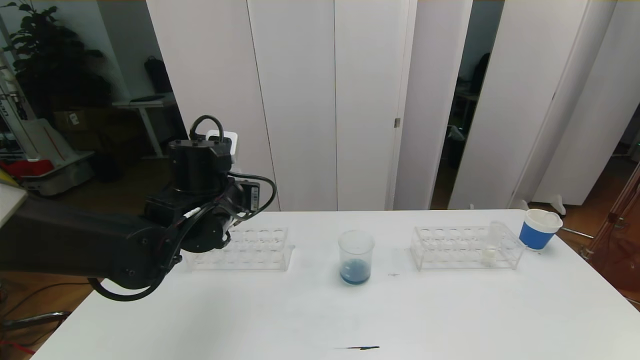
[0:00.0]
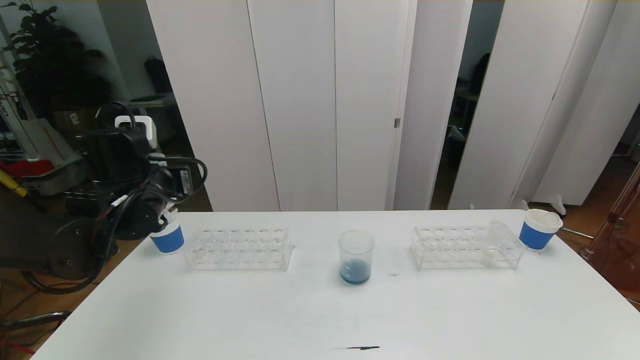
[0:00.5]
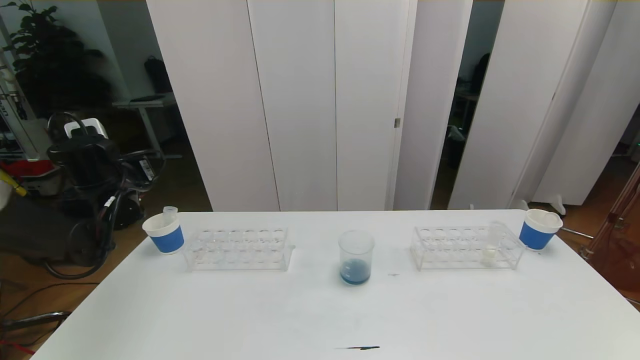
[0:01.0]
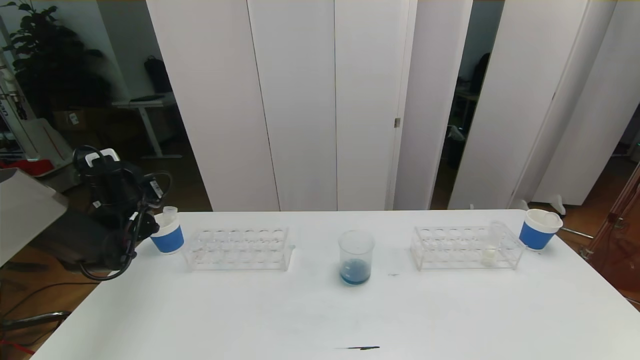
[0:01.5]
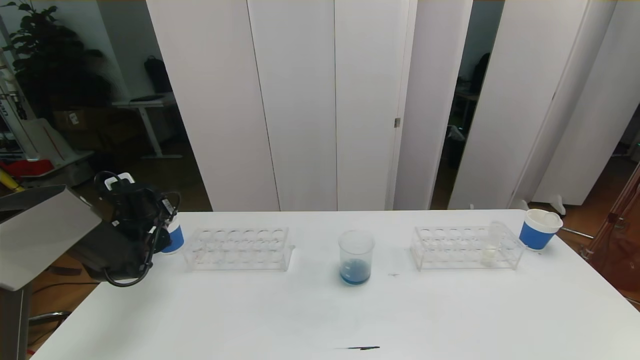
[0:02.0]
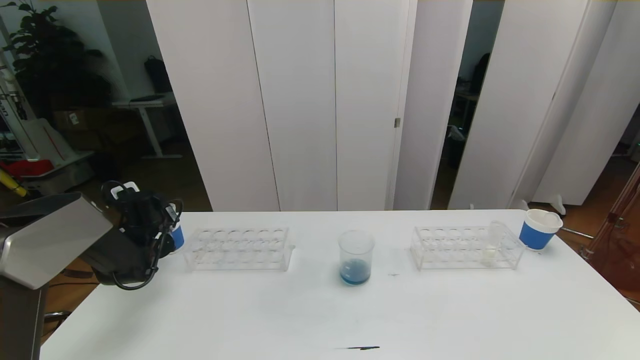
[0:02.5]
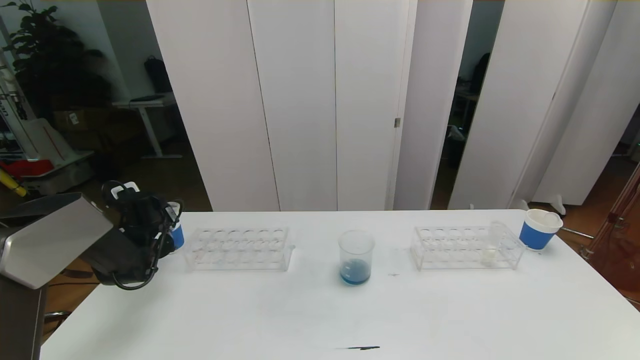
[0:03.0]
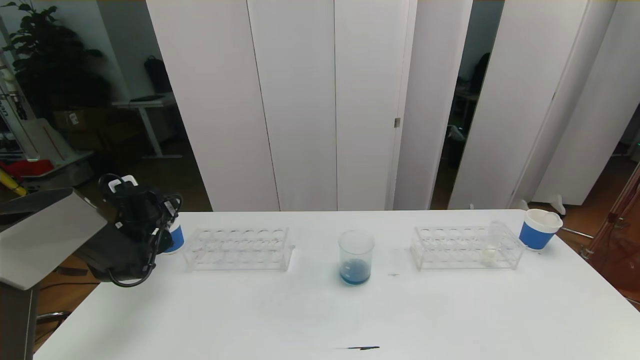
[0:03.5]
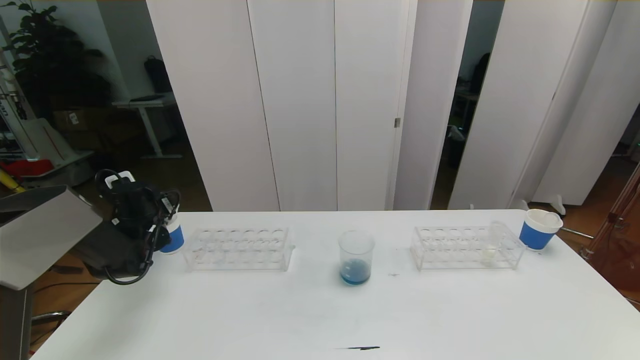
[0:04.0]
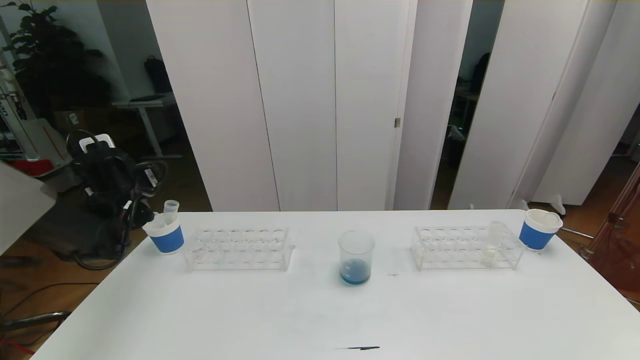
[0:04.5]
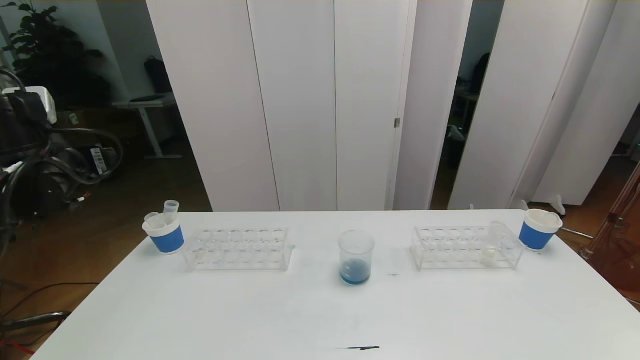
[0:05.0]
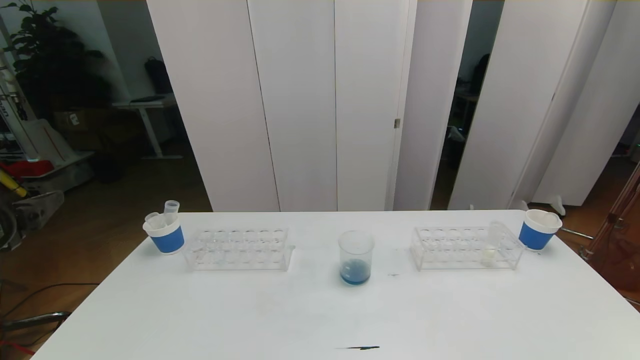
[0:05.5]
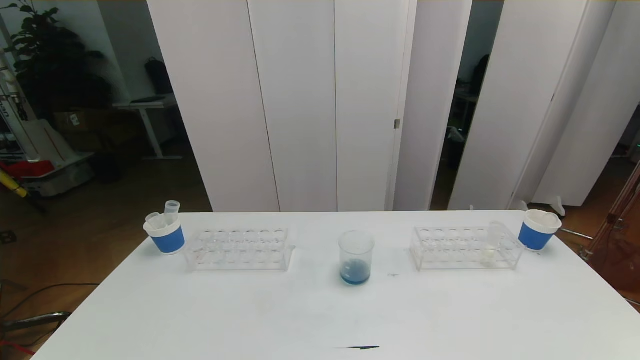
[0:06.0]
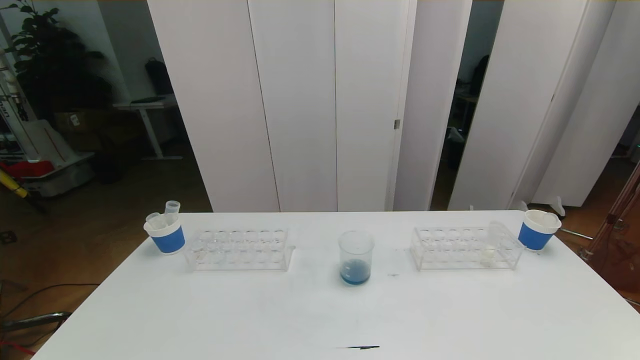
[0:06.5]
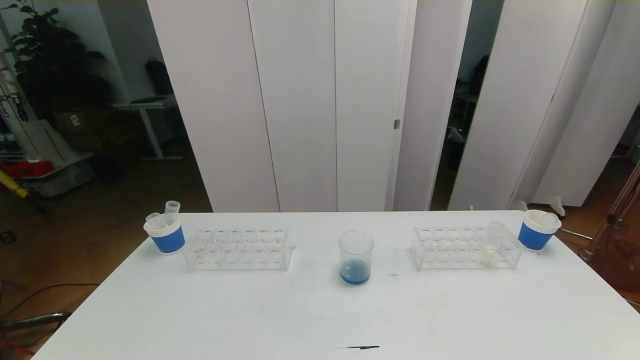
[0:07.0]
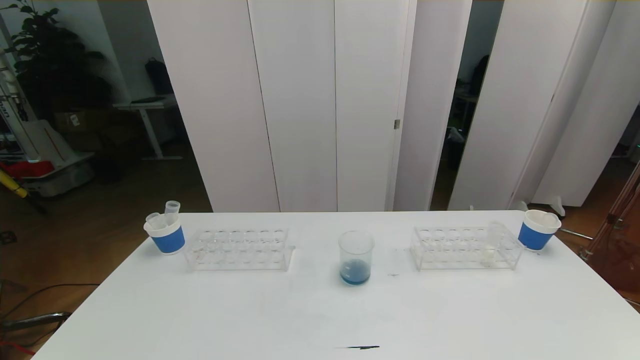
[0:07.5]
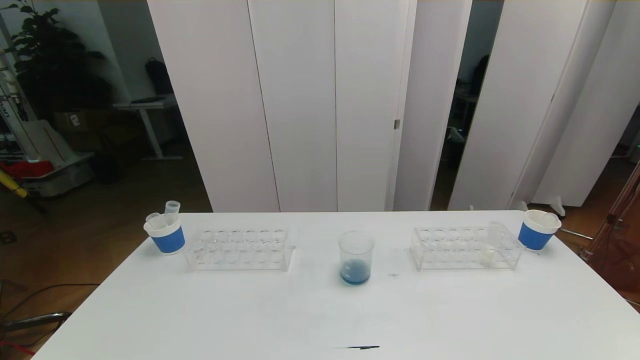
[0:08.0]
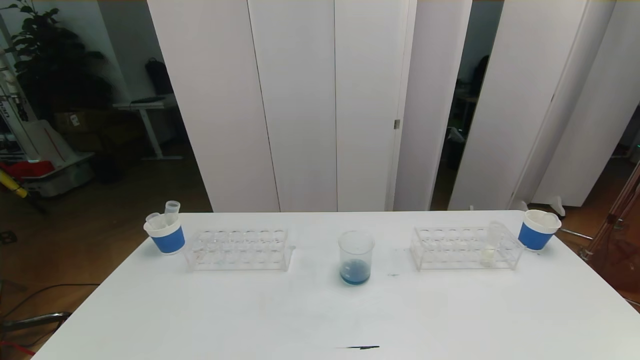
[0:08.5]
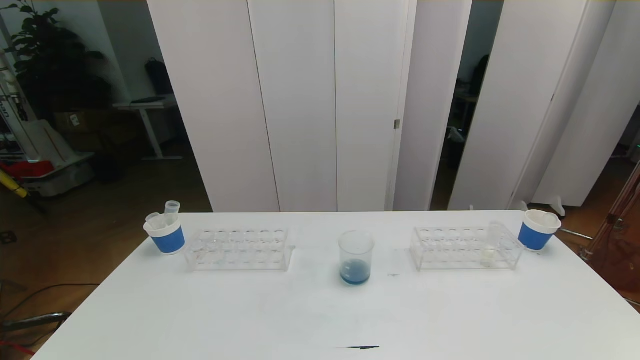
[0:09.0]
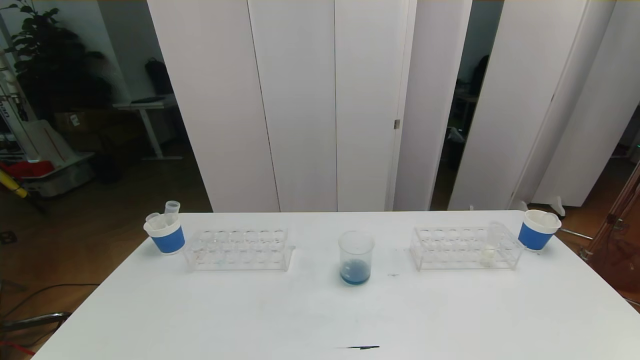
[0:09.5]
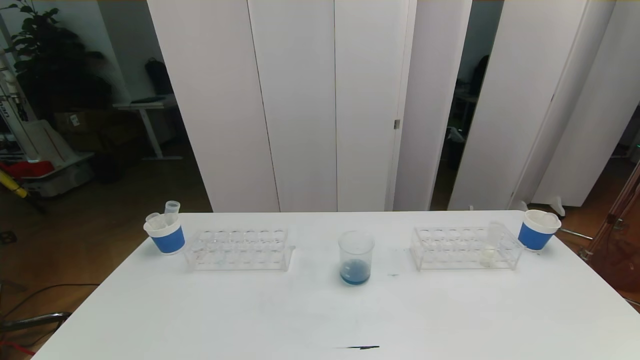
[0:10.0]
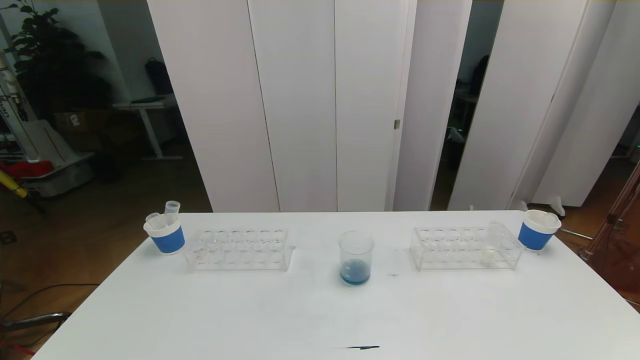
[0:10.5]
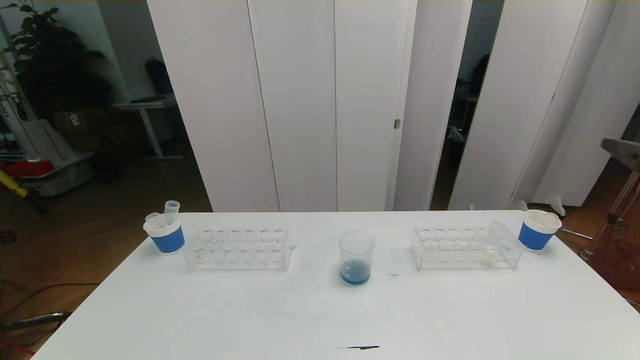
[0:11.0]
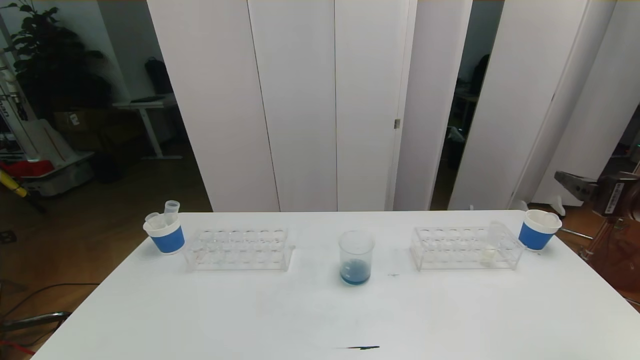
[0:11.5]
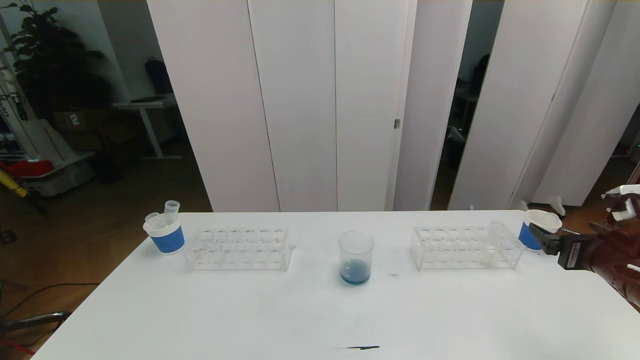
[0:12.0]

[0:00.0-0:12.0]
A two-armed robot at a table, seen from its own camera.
Task of the whole recording: pick up the test tube with red pigment the test tube with blue pigment and the test tube with white pigment by grippers and pour them into the beaker.
Step, 0:00.0 to 0:07.0: Pour the orange reagent into the graduated cylinder and place the test tube into the paper cup.
0:00.0 to 0:02.0: The left gripper travels to the left, downward and forward by about 25 cm.
0:04.0 to 0:06.0: The left gripper heads backward, covering approximately 40 cm.
0:10.0 to 0:12.0: The right gripper goes some 25 cm forward.

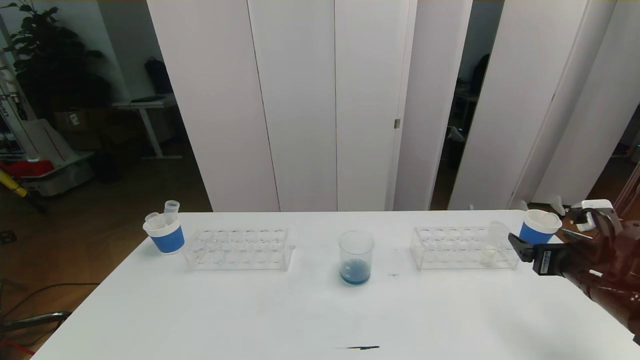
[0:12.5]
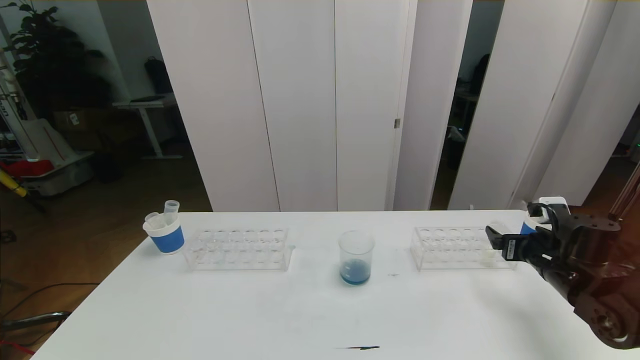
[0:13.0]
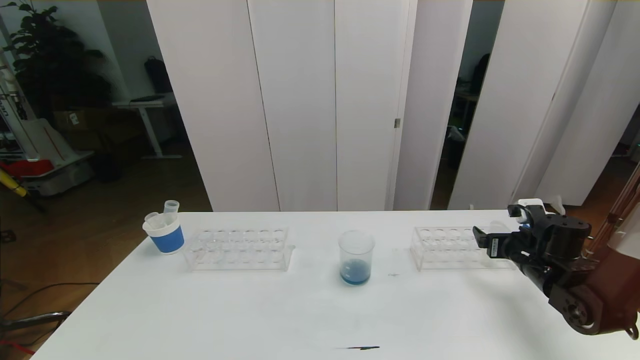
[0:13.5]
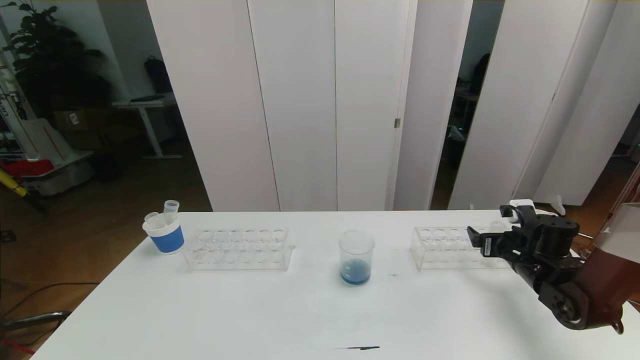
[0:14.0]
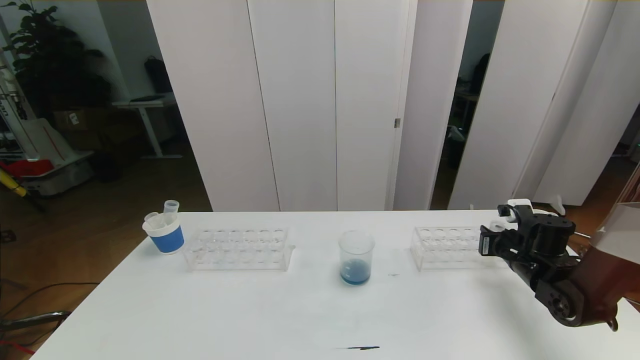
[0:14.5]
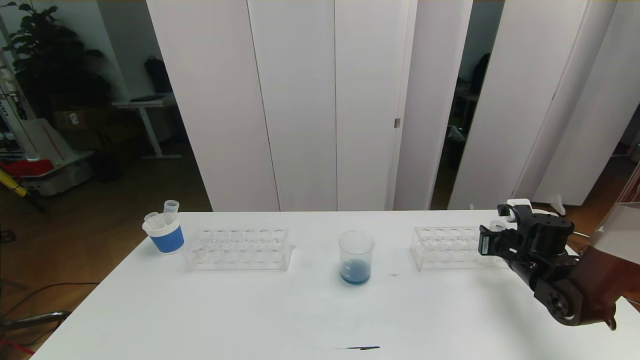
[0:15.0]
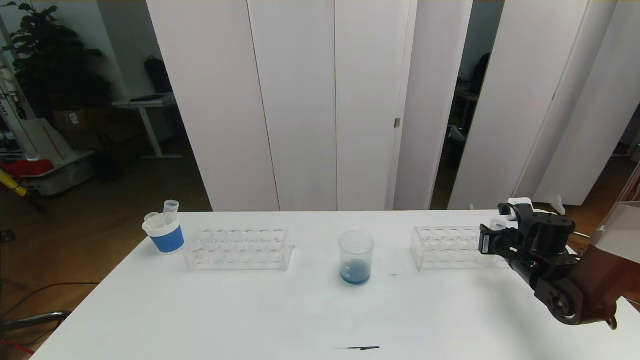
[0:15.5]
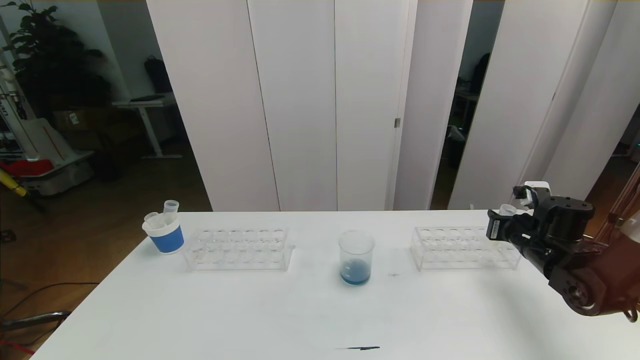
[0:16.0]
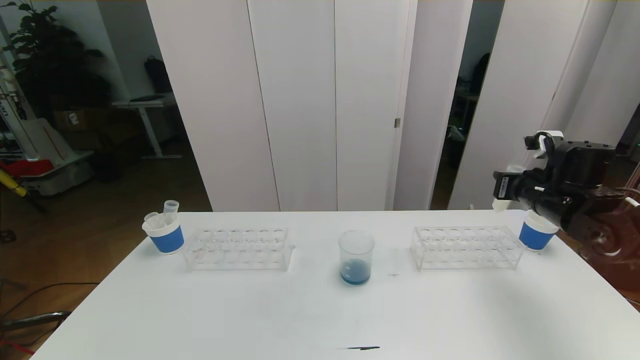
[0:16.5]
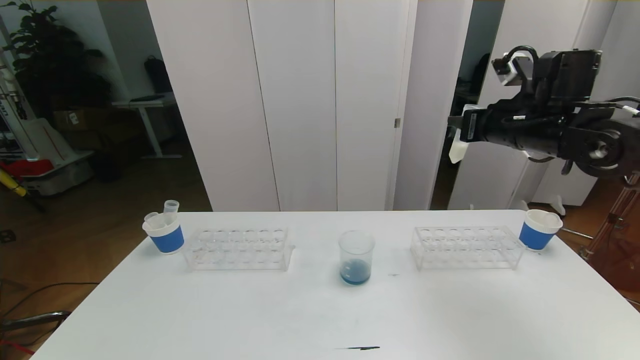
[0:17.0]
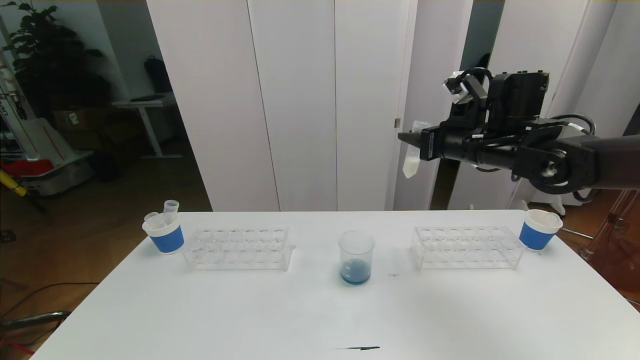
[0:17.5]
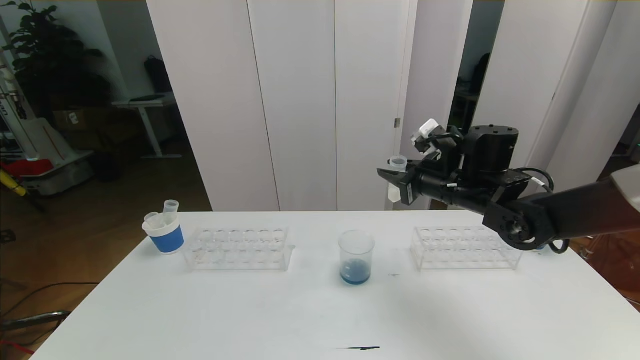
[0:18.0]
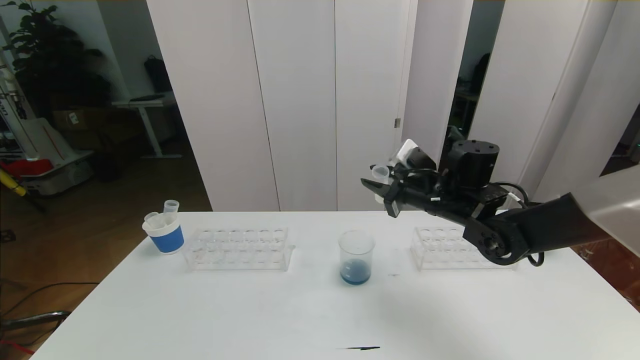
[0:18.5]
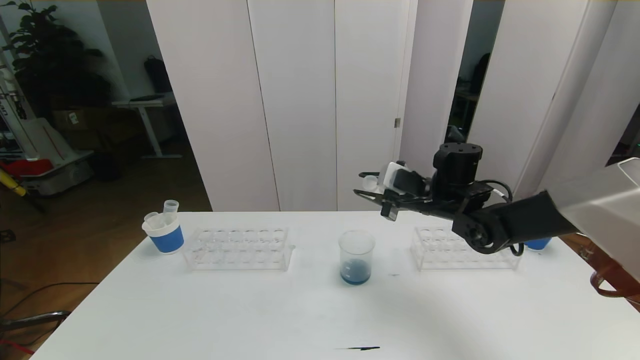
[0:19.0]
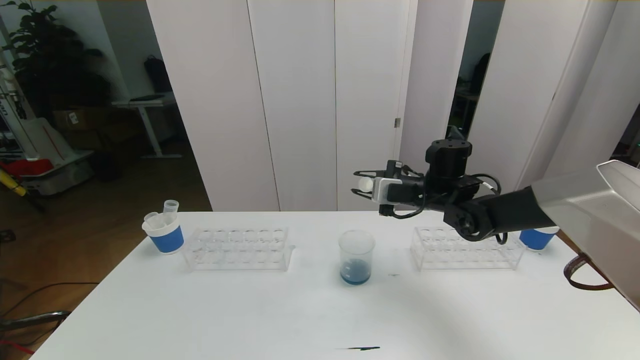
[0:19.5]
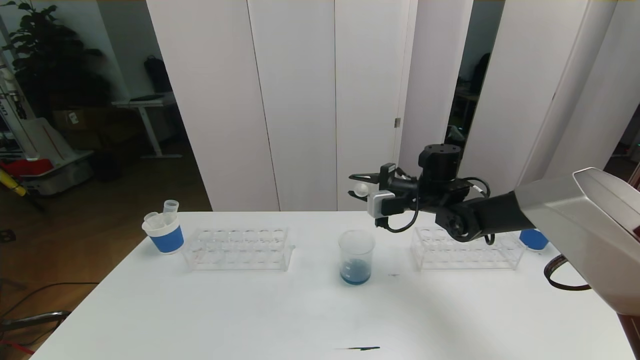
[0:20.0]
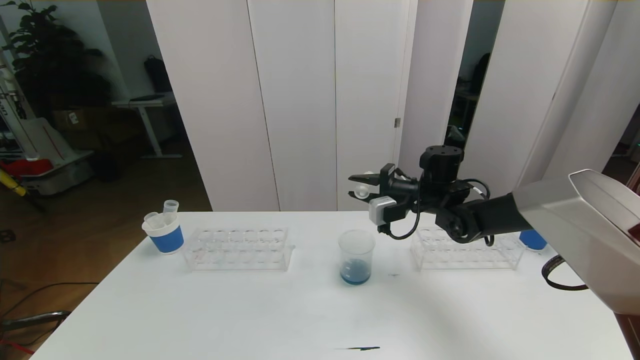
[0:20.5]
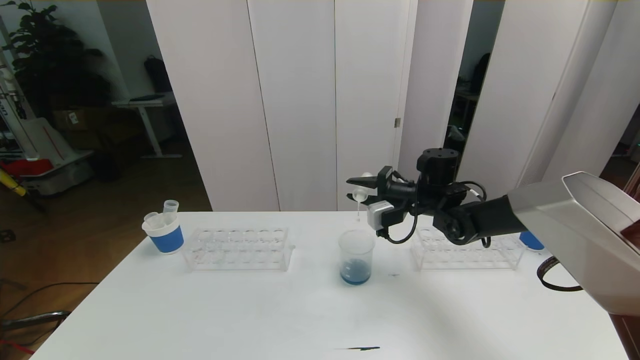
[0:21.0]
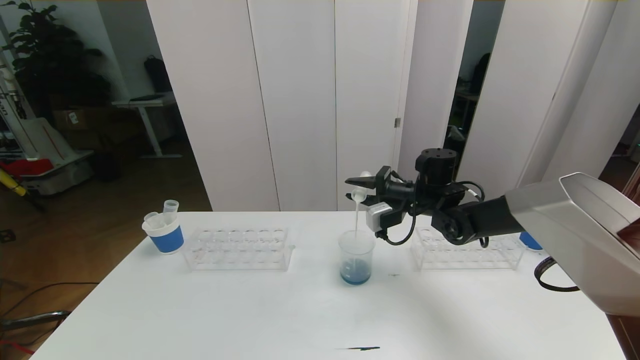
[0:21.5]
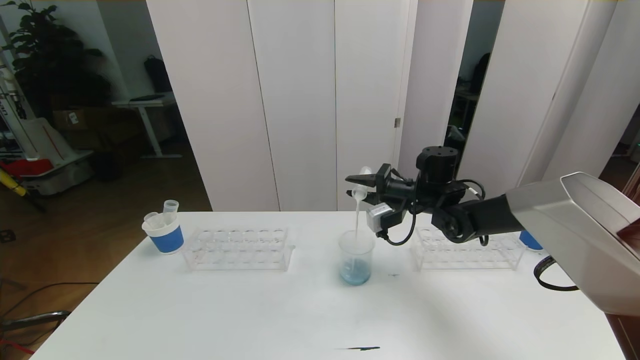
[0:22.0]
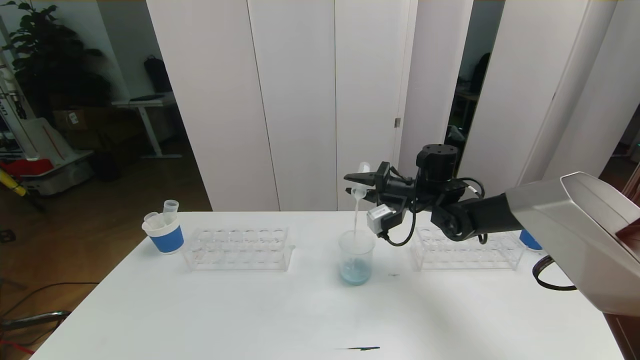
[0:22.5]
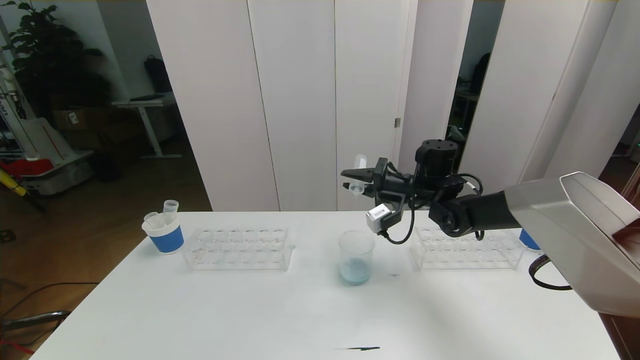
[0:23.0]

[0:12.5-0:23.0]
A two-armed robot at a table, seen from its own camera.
Task of the whole recording: pick up the test tube with red pigment the test tube with blue pigment and the test tube with white pigment by grippers and pour them into the beaker.
0:12.5 to 0:14.5: The right gripper is displaced forward and downward by approximately 10 cm, and closes up.
0:14.5 to 0:16.5: The right gripper is displaced upward by some 15 cm.
0:16.5 to 0:19.0: The right gripper moves to the left, approximately 15 cm.
